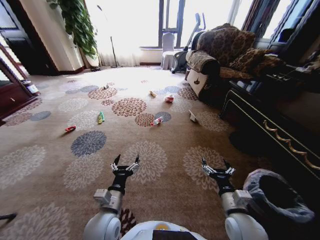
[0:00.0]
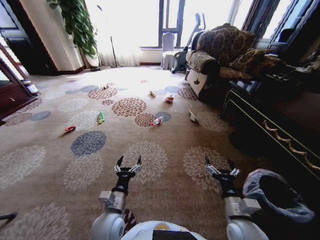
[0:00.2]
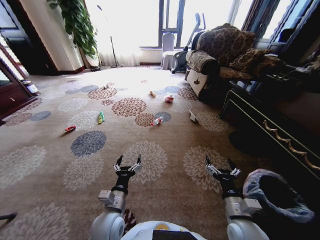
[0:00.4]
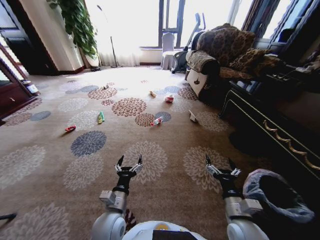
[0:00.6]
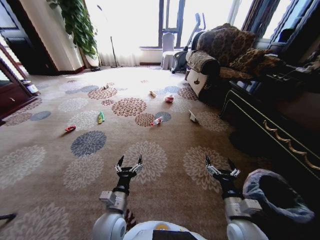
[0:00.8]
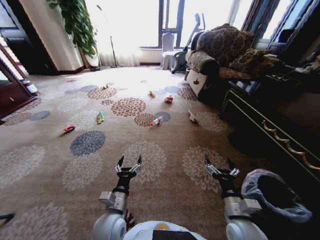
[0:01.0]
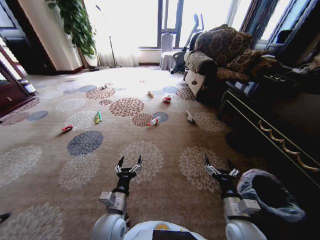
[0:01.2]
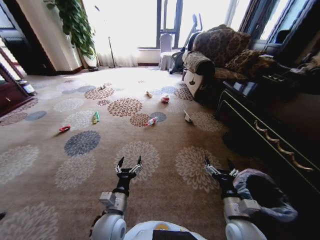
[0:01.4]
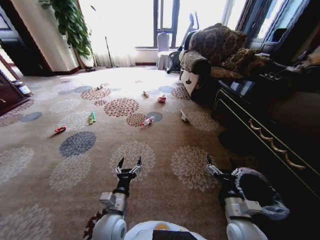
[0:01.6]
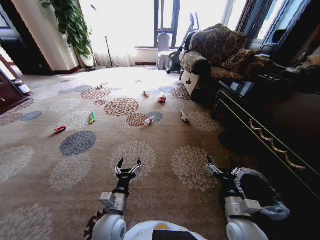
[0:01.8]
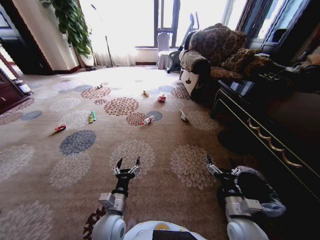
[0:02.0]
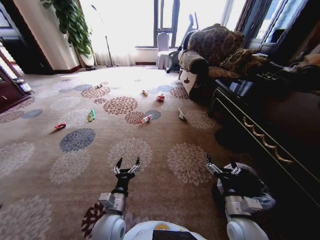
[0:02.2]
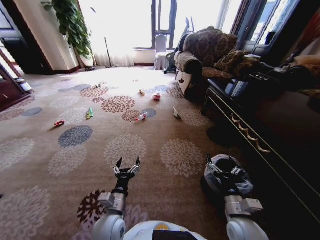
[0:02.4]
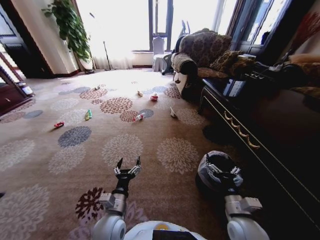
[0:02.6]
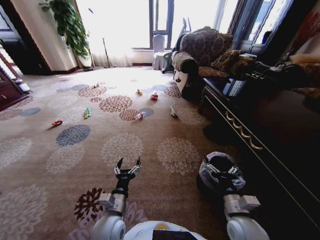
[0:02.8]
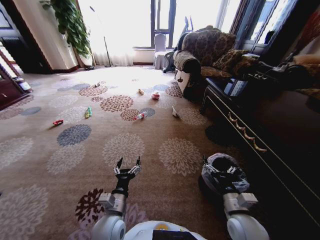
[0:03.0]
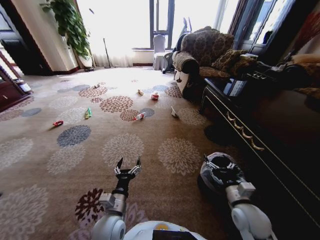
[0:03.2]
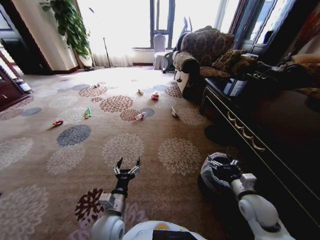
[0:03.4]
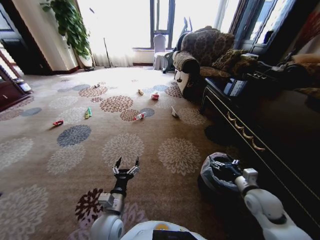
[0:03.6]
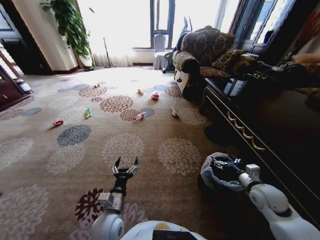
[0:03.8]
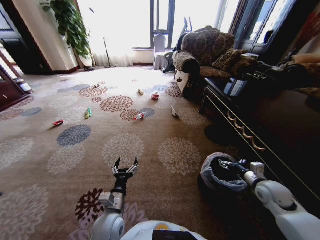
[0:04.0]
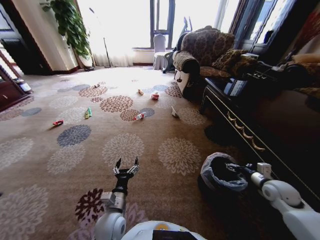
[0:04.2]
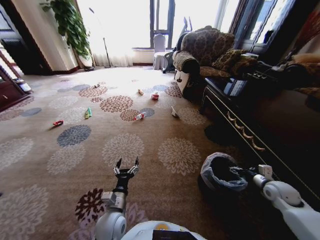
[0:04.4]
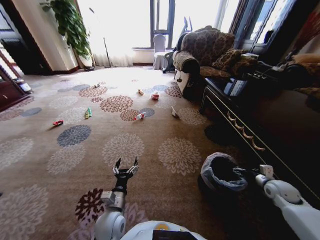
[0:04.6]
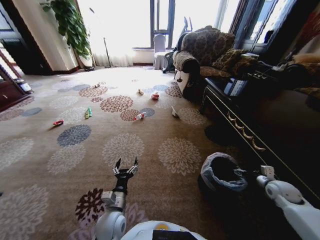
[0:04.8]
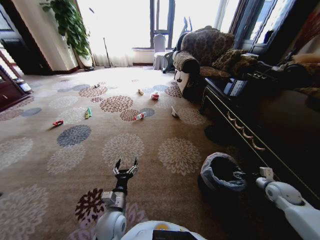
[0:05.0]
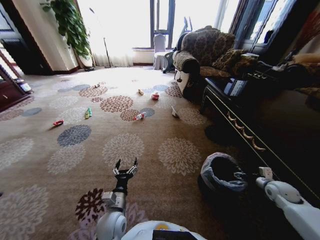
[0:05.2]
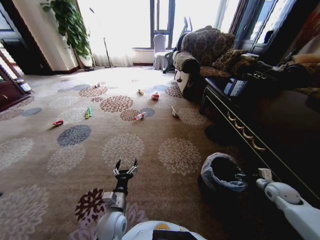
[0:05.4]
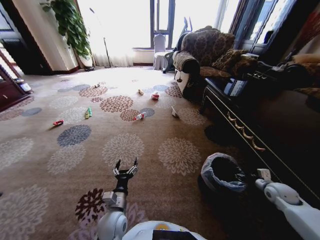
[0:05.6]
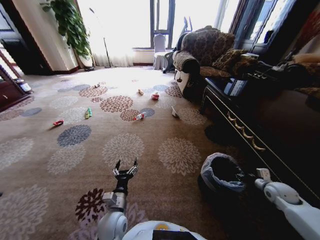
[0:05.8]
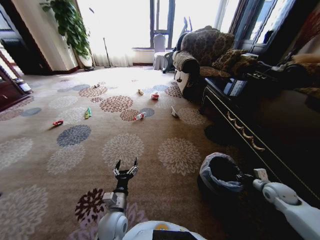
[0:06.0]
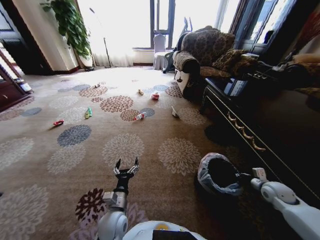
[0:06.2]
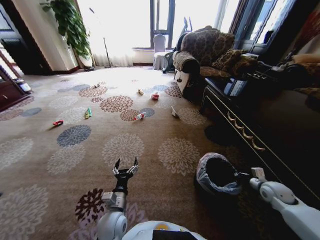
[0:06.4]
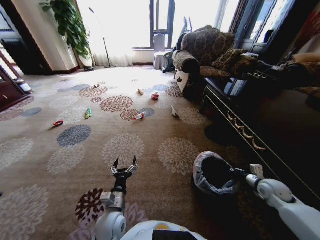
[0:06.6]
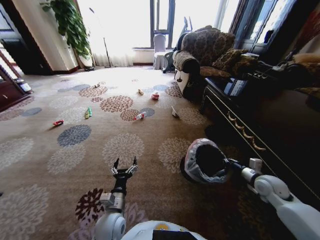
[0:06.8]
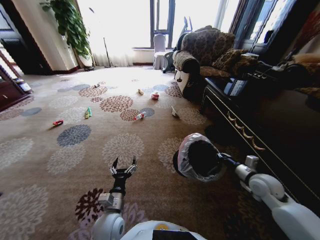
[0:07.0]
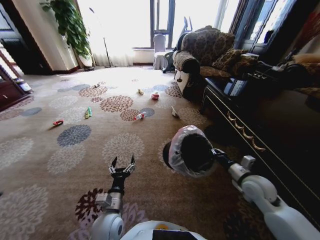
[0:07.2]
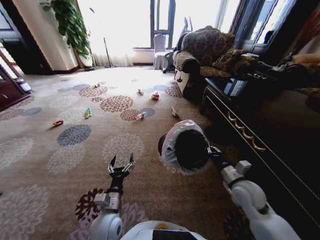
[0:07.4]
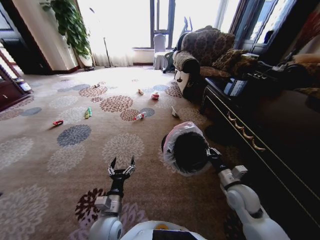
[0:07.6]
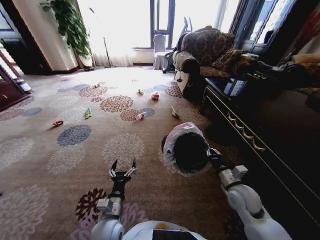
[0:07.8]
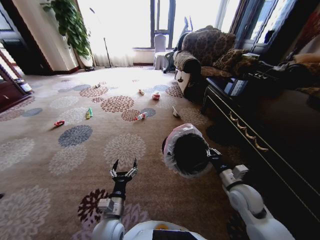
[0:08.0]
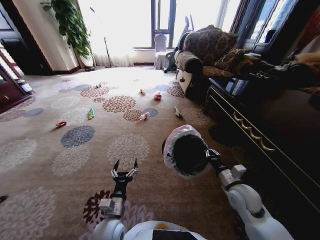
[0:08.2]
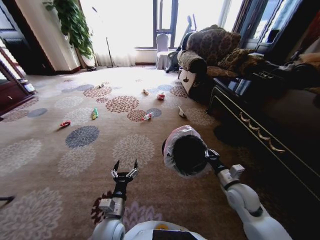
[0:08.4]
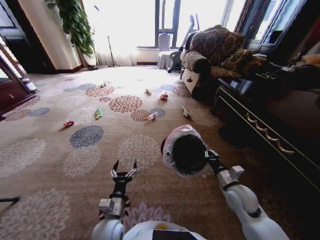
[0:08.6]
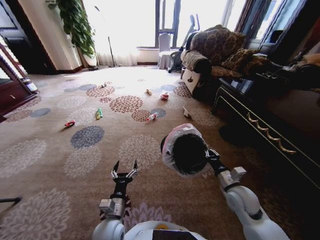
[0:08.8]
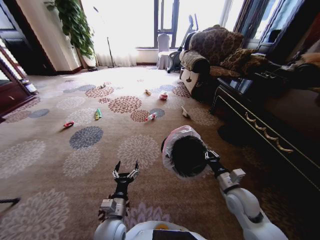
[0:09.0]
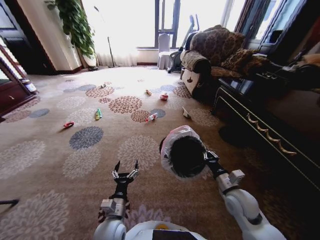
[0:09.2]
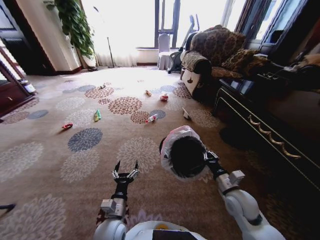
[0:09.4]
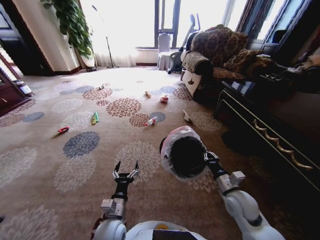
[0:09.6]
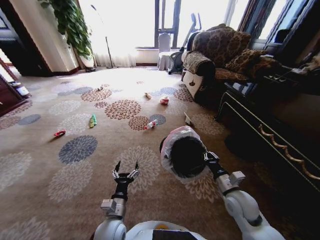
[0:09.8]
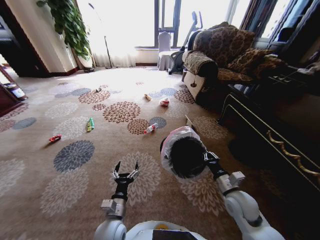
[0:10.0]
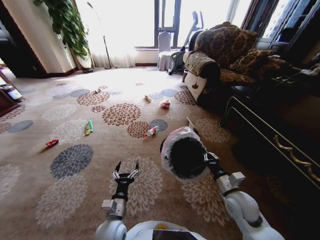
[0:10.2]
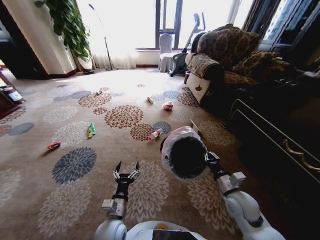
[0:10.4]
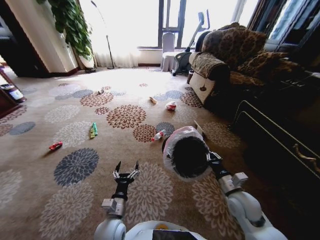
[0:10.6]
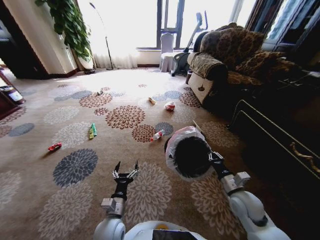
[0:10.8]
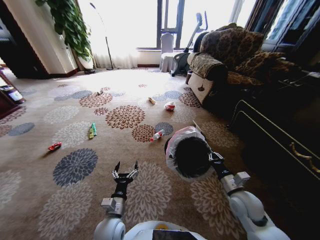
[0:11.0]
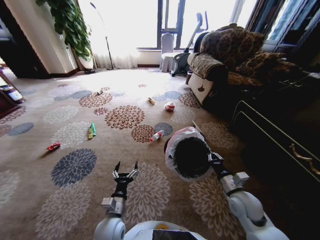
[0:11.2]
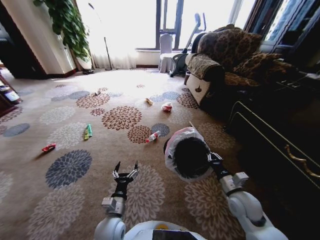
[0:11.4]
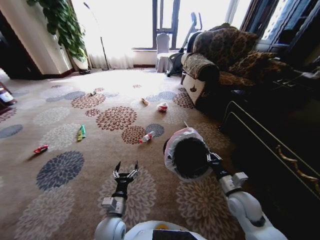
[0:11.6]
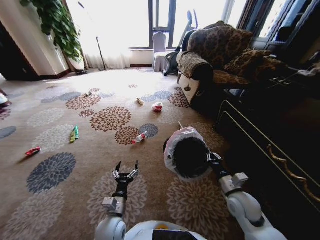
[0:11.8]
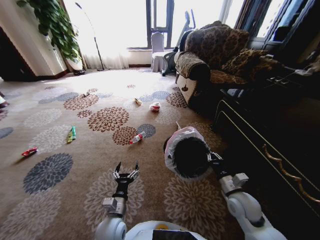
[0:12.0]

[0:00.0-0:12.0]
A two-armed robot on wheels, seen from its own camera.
Task of the whole recording: Pick up the trash from the ground and place it into the trash bin.
0:03.0 to 0:04.4: The right gripper goes approximately 25 cm to the right and forward.
0:04.4 to 0:06.0: The right gripper closes its fingers.
0:06.0 to 0:07.6: The right gripper heads to the left, covering about 20 cm.

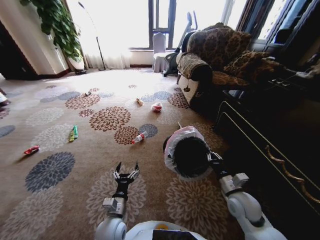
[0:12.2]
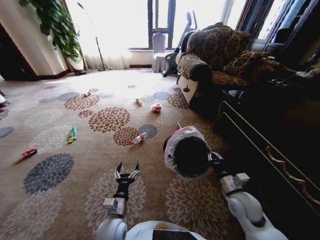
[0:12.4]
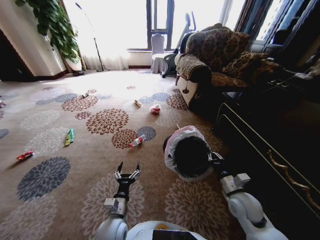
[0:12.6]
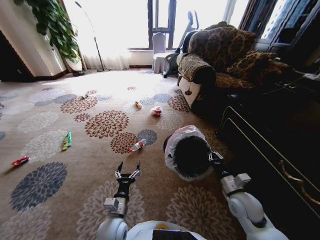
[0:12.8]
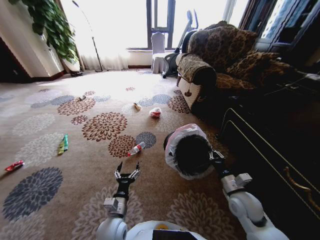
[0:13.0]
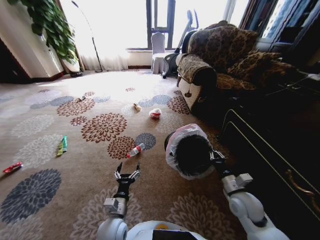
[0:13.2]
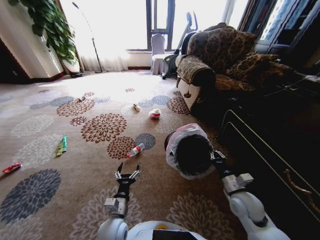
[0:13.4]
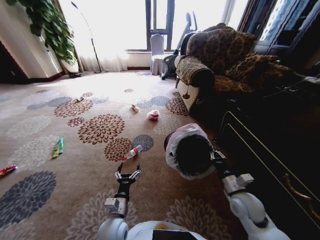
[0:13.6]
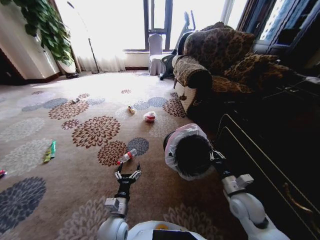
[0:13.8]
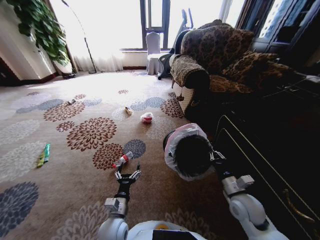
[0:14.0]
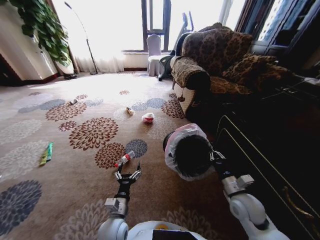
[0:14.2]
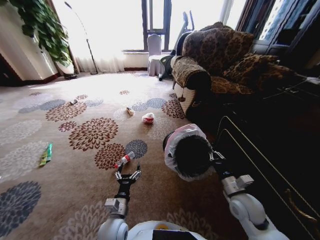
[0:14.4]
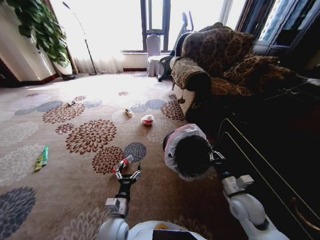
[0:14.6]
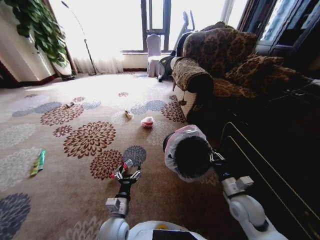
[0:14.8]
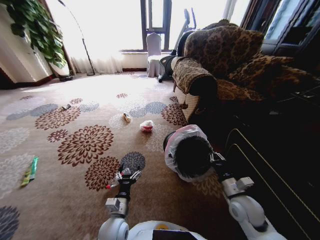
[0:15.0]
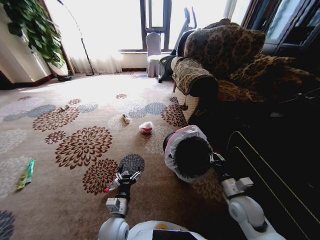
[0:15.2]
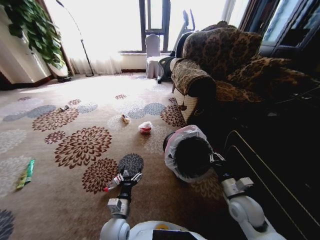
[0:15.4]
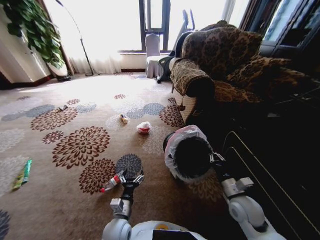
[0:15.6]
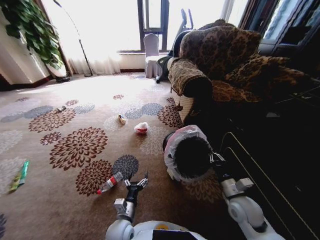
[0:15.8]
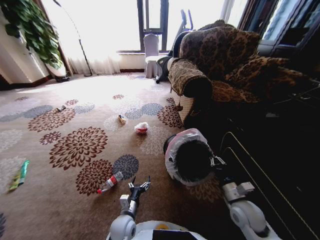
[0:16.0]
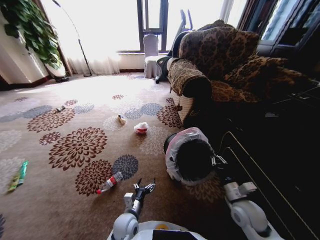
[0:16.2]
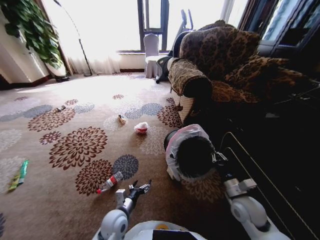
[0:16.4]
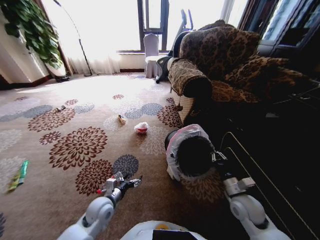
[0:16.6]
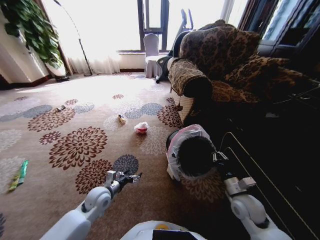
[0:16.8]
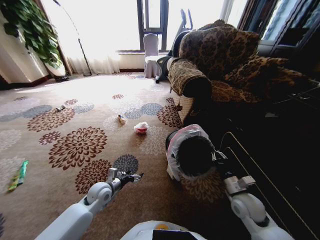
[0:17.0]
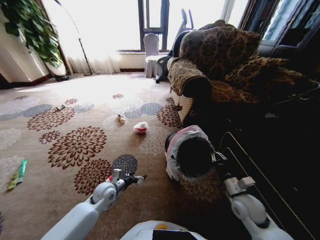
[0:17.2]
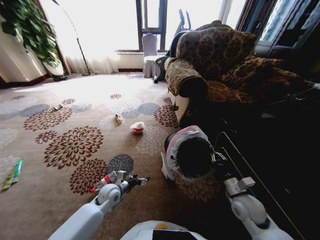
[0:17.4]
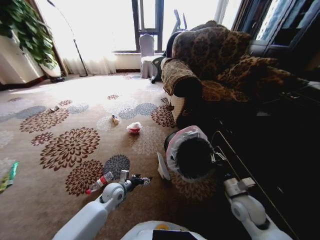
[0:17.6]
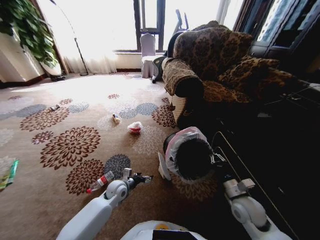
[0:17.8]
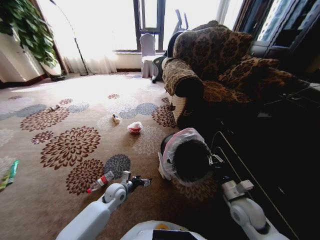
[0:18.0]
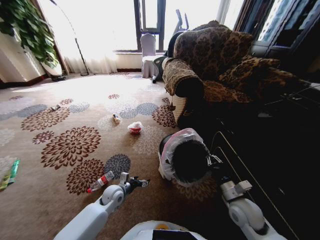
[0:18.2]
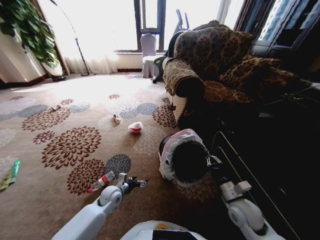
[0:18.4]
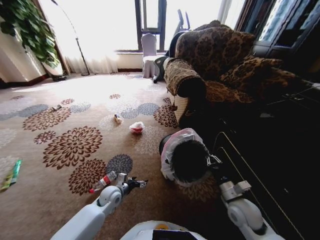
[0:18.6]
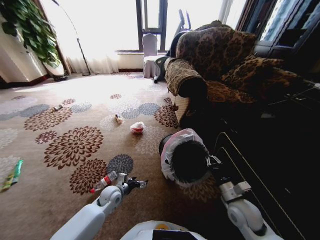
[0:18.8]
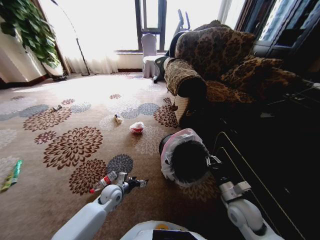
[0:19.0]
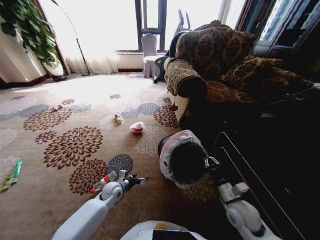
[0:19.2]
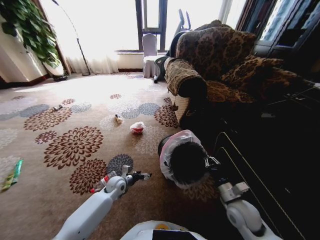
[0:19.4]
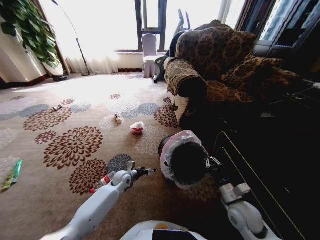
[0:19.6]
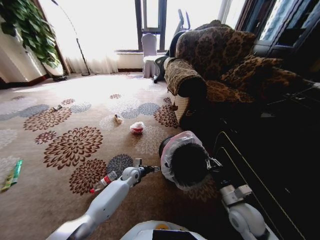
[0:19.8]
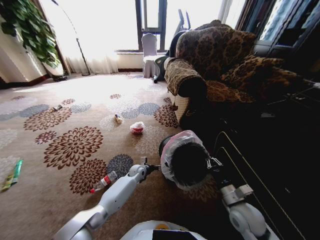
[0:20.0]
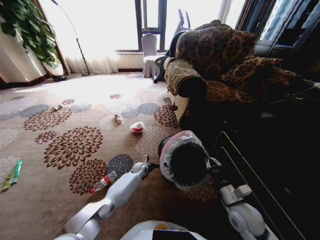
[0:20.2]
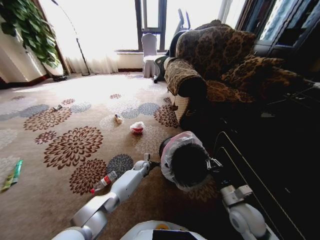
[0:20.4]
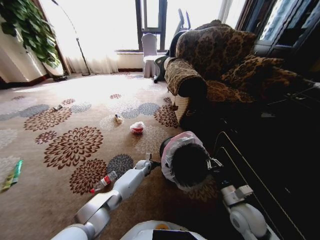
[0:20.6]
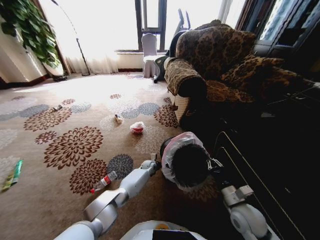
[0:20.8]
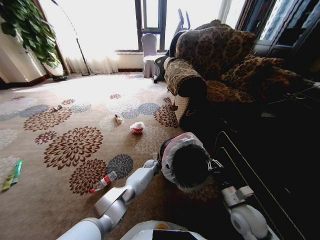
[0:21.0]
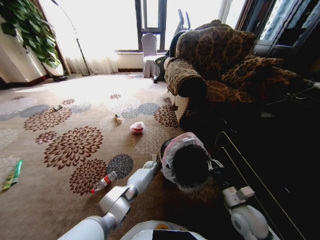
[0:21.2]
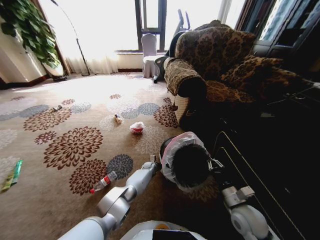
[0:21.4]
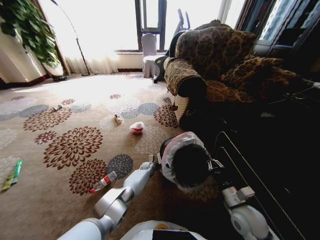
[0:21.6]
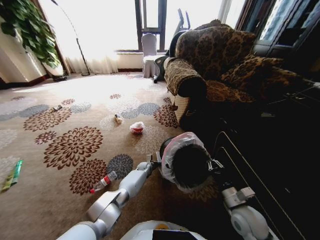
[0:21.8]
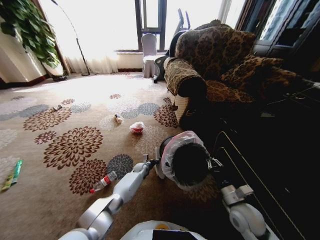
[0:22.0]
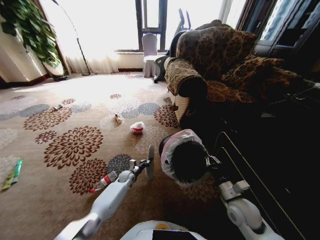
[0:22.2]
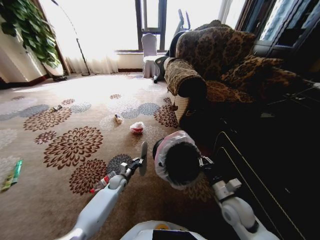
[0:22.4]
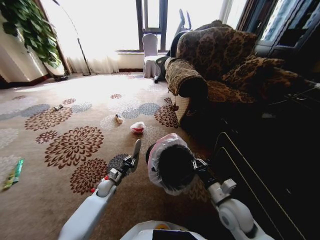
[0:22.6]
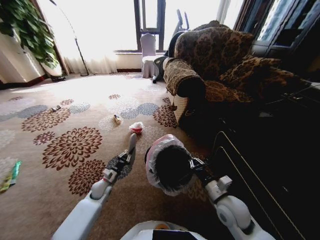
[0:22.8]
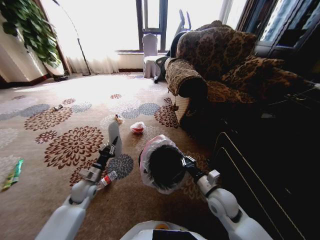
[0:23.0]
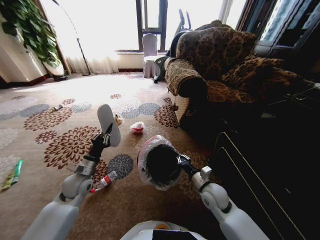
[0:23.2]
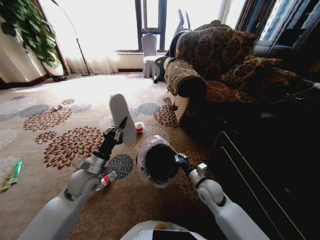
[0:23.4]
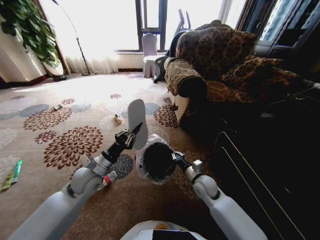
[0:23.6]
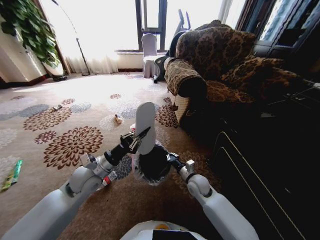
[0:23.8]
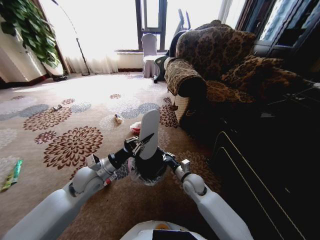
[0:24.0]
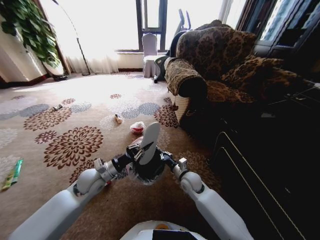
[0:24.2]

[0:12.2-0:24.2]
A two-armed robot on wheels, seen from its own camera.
Task of the whole recording: Pick up the trash from the ground and place it into the trash bin.
0:15.2 to 0:16.6: The left gripper shifts approximately 10 cm to the left and forward.
0:16.6 to 0:18.2: The left gripper goes approximately 10 cm forward and downward.
0:18.2 to 0:19.8: The left gripper moves forward and to the right, about 15 cm.
0:19.8 to 0:21.2: The left gripper heads to the right, forward and downward, covering some 15 cm.
0:21.2 to 0:22.6: The left gripper moves to the left and backward, some 30 cm, and closes up; the right gripper changes place by some 5 cm.
0:22.6 to 0:24.2: The left gripper travels upward by roughly 20 cm. Meanwhile the right gripper travels forward, to the left and downward by roughly 20 cm.
